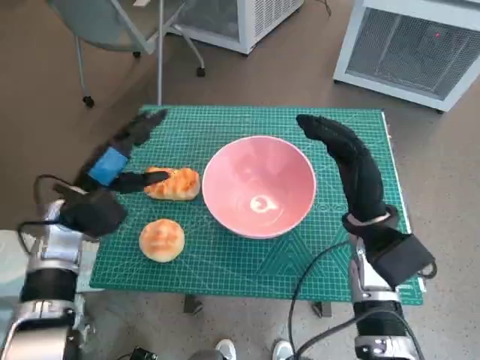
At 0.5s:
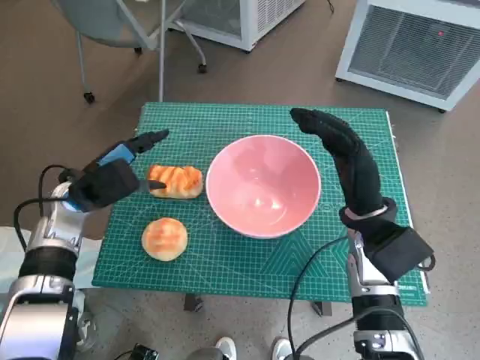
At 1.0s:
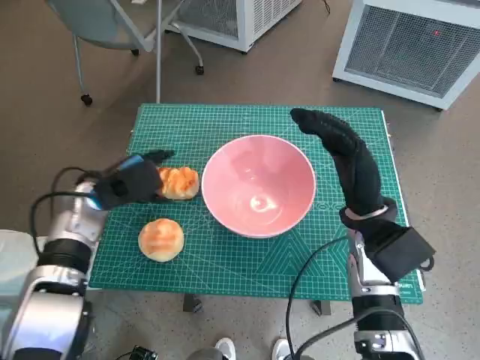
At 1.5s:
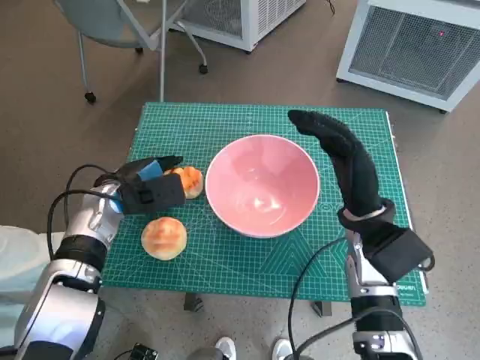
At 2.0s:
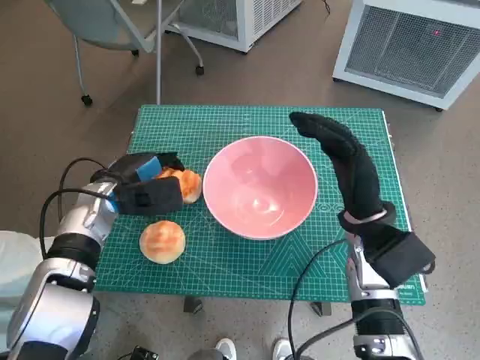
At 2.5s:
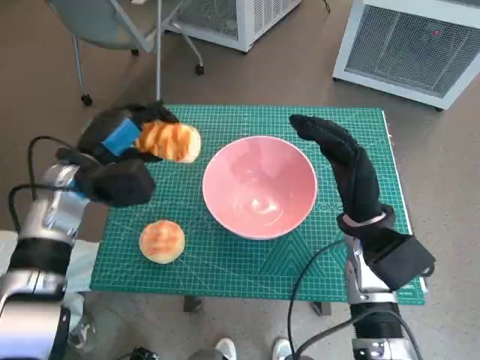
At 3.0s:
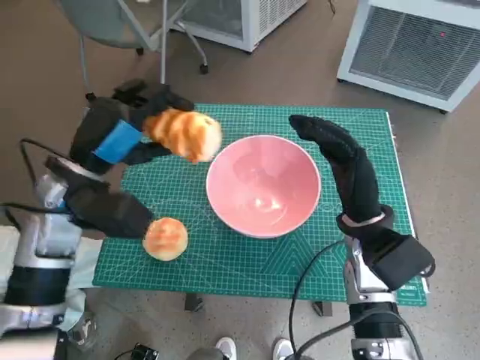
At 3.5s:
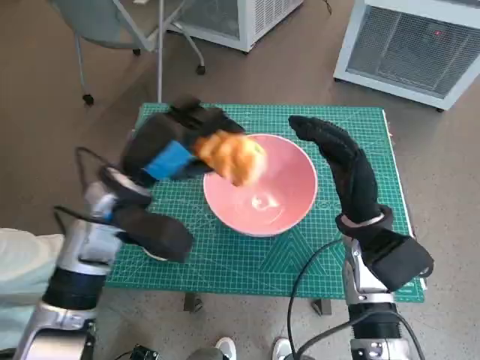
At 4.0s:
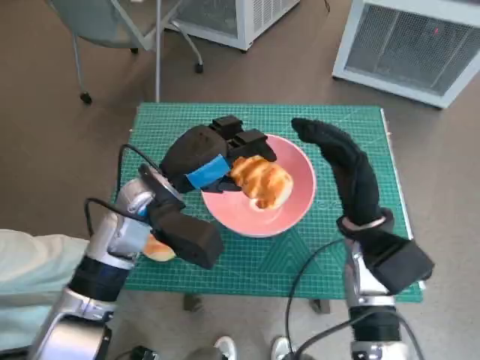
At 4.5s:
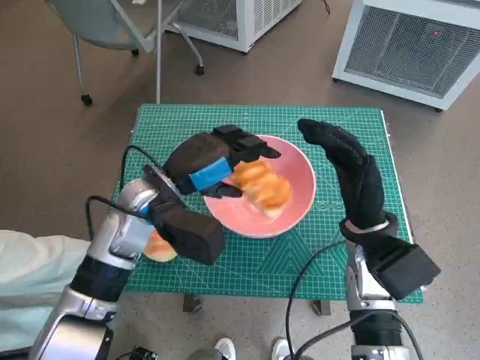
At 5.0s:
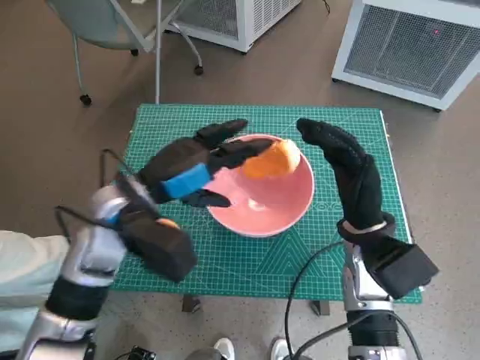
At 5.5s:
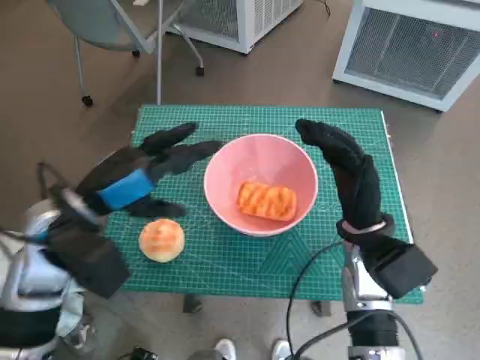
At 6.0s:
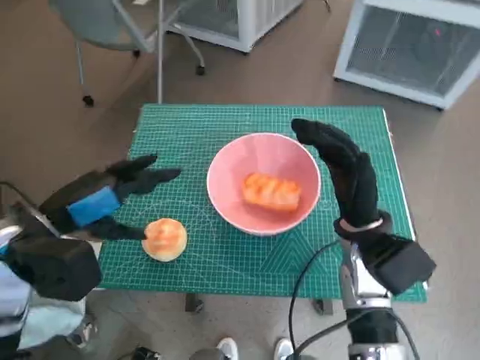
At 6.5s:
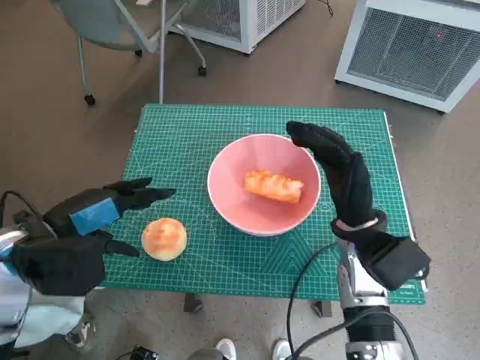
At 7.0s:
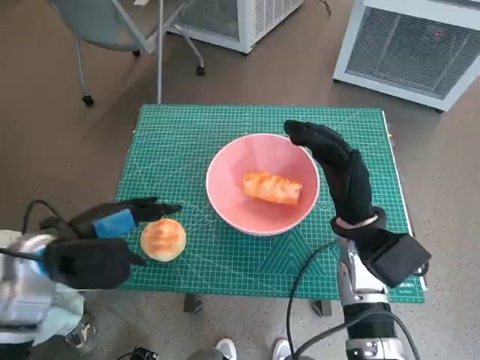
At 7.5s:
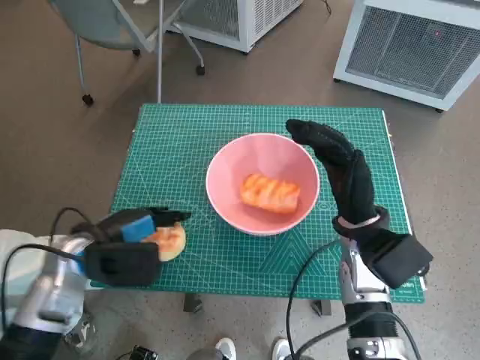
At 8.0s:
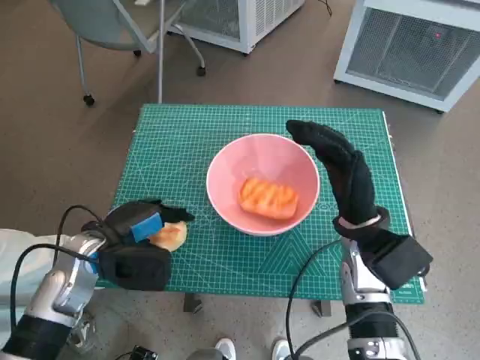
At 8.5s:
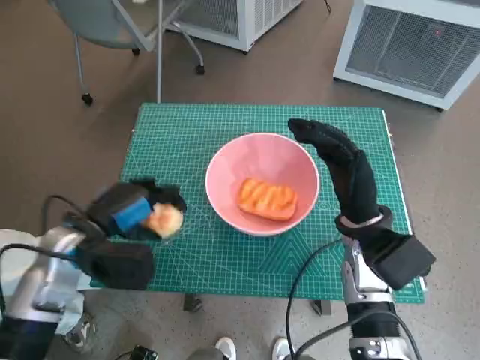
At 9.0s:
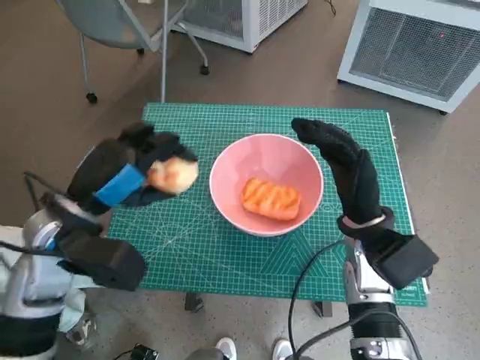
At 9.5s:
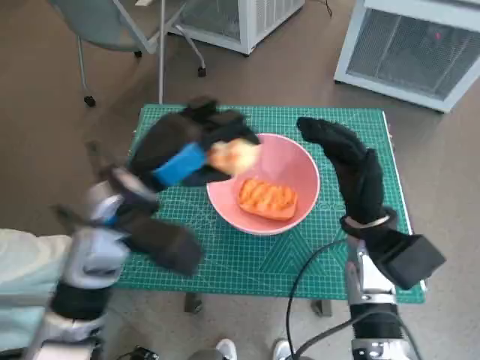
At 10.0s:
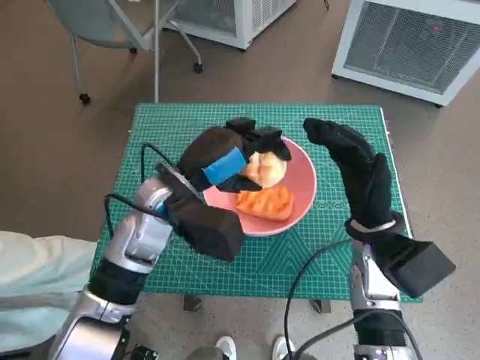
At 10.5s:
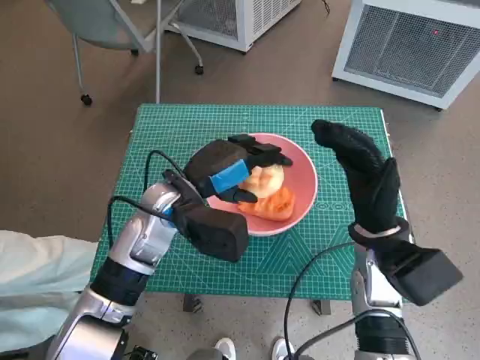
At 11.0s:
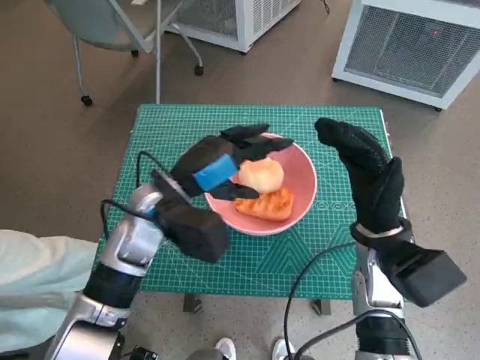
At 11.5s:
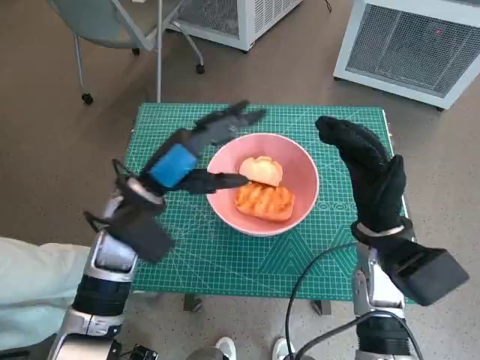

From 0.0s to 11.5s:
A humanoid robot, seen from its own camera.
Task of the whole recording: Push the bowl into the center of the table and put the bread into the bowl.
Step, from 2.0s to 4.5s: Place the long bread in pink bowl with left hand.
Step, from 5.0s to 7.5s: Grasp the round bread with left hand.
Step, from 8.0s to 11.0s: Place the round bread in pink bowl with left hand.
From 0.0s to 2.0s: The left hand ends up approximately 5 cm from where it was.
From 2.0s to 4.0s: The left hand goes about 10 cm to the right and upward.
From 4.0s to 6.0s: The left hand is displaced to the left and backward by roughly 15 cm.
From 6.0s to 7.5s: The left hand shifts about 10 cm downward.
From 7.5s to 9.5s: The left hand heads to the right and upward, covering about 10 cm.

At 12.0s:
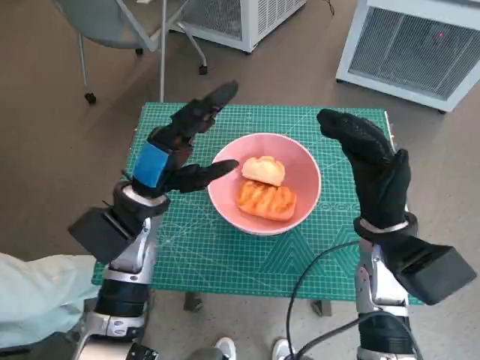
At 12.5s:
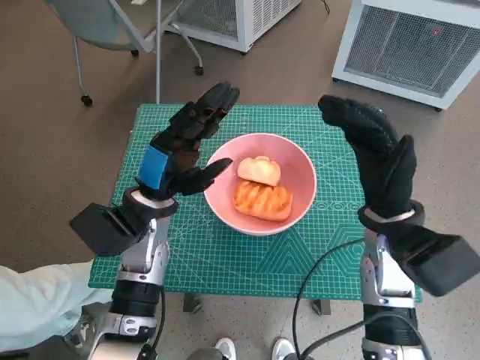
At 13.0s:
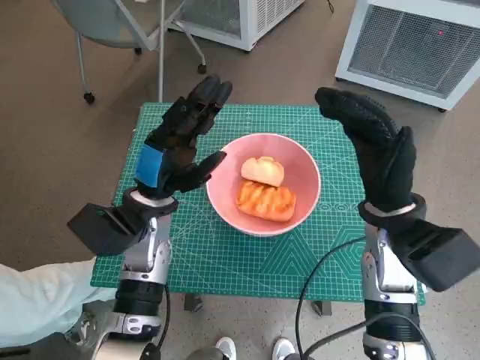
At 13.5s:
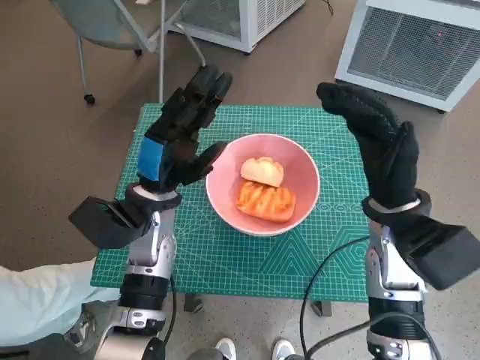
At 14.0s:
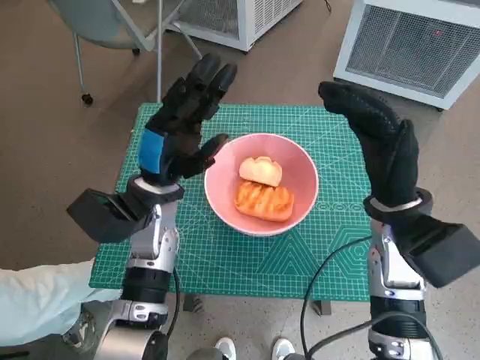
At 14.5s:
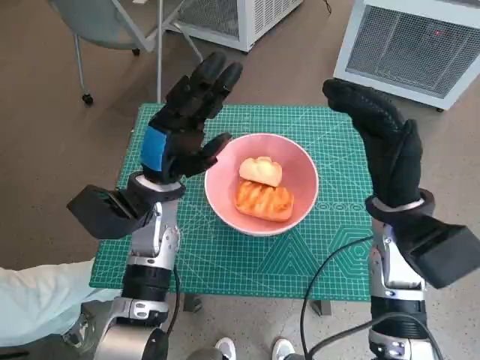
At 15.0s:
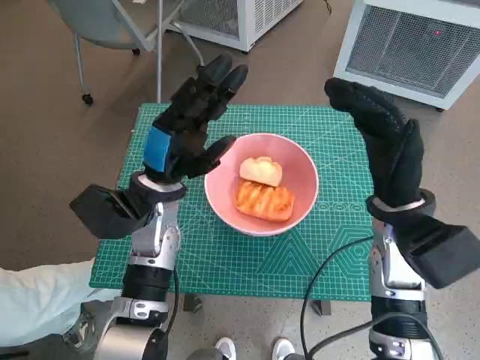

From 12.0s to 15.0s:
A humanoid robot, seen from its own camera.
Task of the whole recording: Push the bowl into the center of the table and put the bread into the bowl.
From 13.5s to 15.0s: The hands make only small movements.
